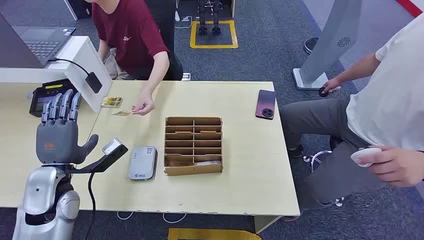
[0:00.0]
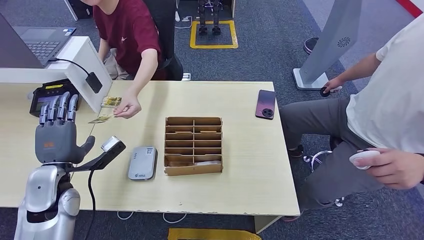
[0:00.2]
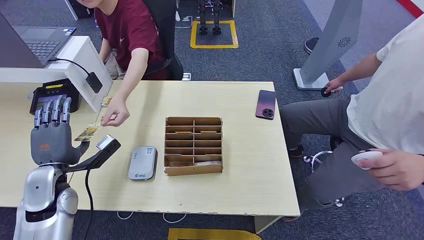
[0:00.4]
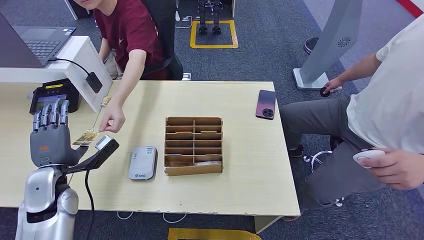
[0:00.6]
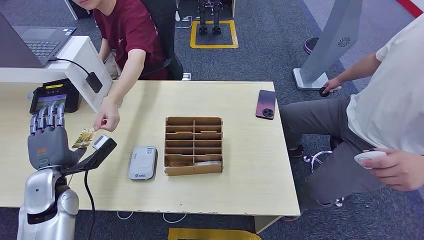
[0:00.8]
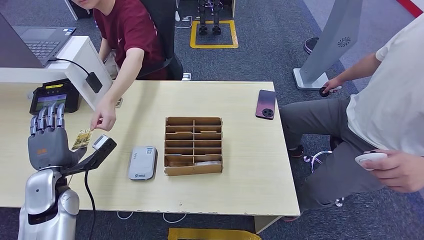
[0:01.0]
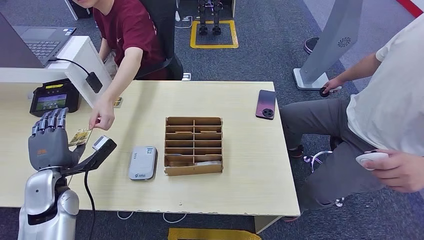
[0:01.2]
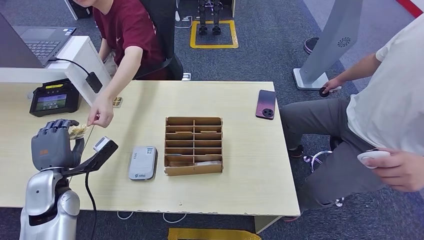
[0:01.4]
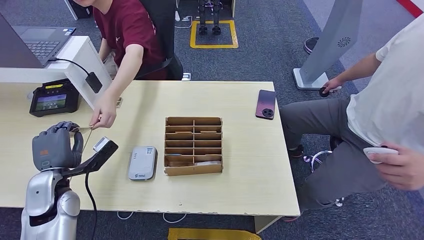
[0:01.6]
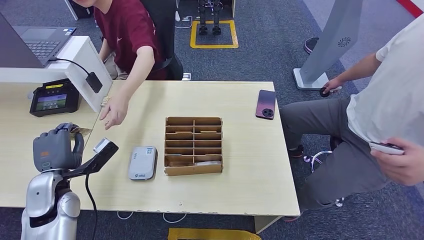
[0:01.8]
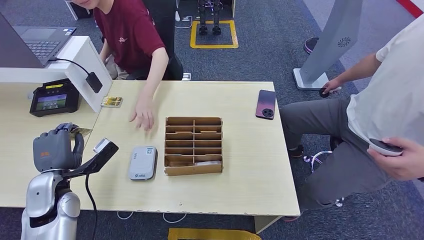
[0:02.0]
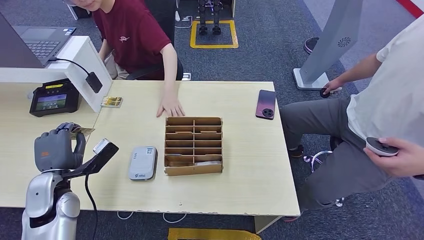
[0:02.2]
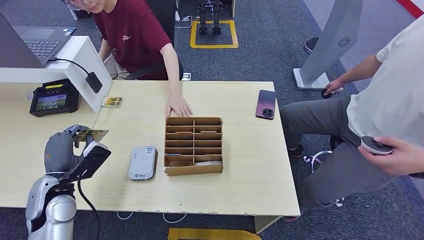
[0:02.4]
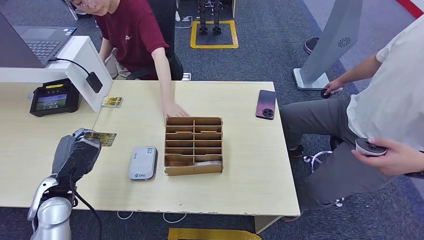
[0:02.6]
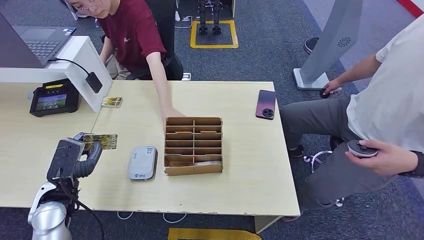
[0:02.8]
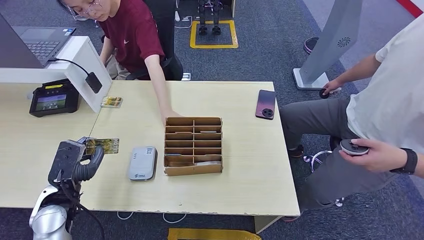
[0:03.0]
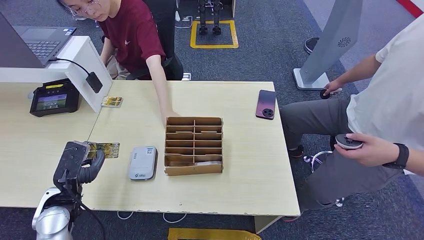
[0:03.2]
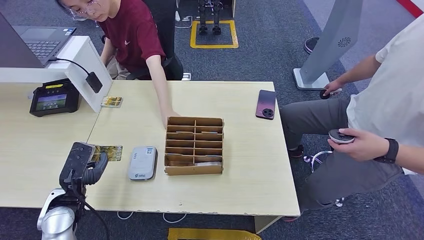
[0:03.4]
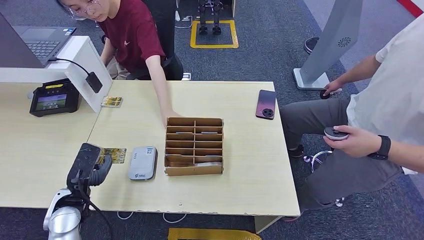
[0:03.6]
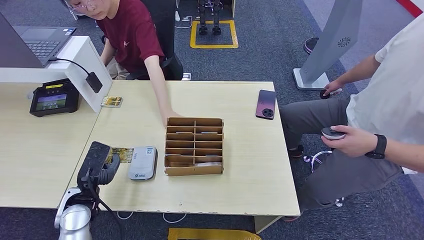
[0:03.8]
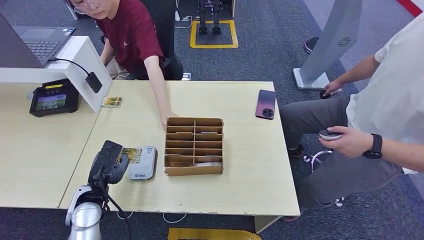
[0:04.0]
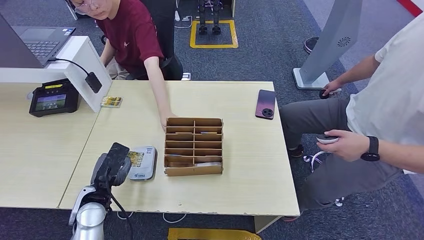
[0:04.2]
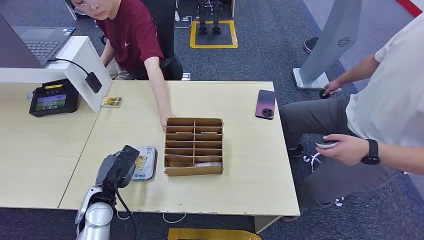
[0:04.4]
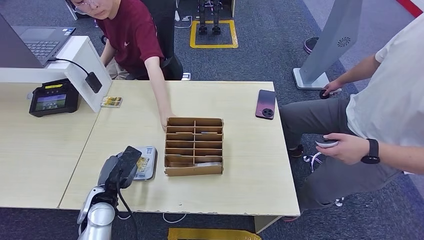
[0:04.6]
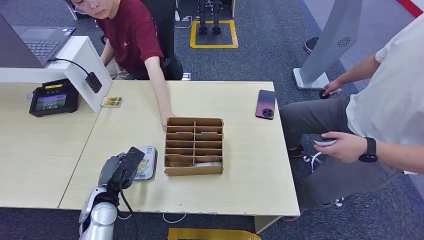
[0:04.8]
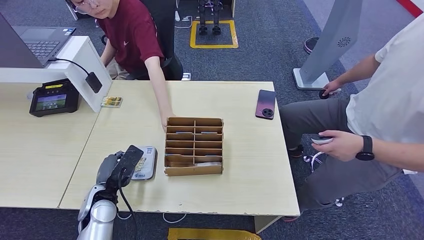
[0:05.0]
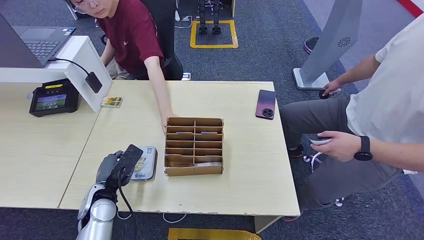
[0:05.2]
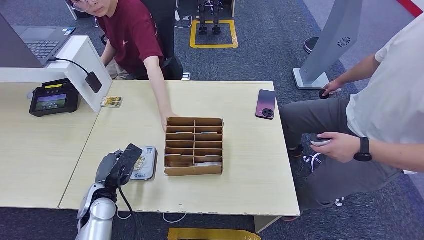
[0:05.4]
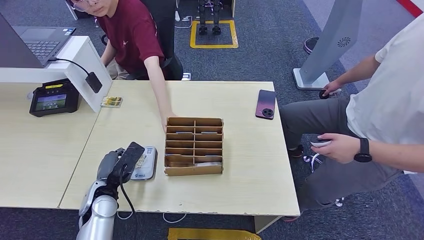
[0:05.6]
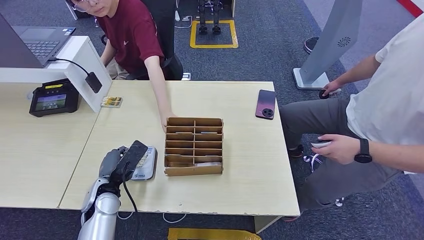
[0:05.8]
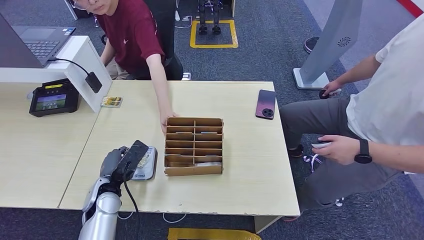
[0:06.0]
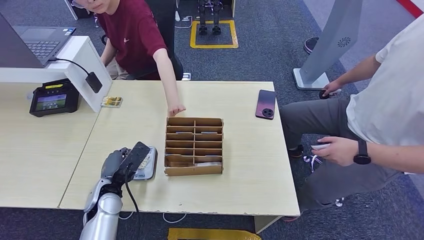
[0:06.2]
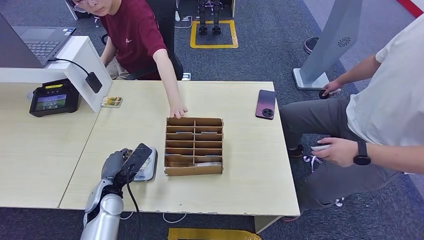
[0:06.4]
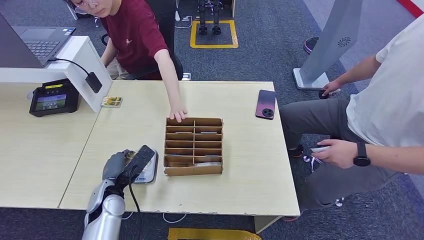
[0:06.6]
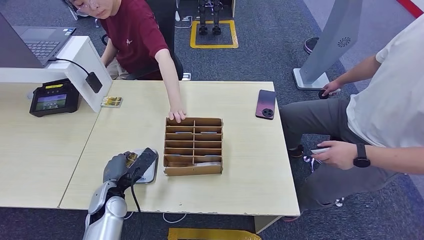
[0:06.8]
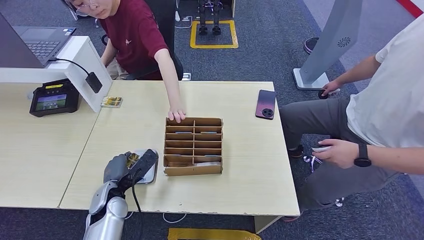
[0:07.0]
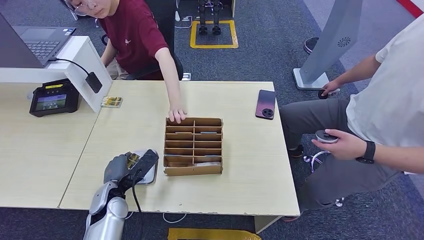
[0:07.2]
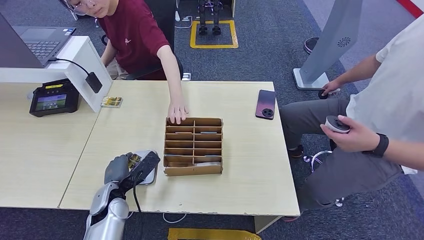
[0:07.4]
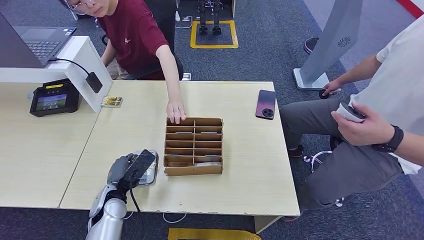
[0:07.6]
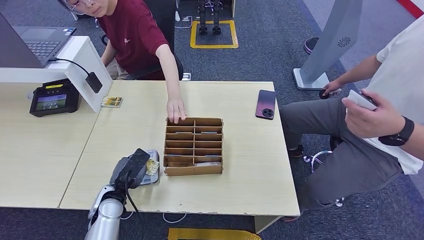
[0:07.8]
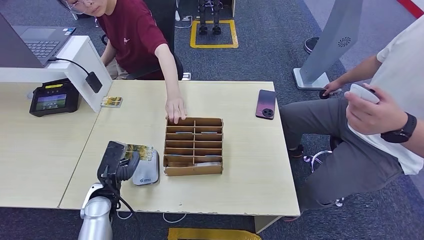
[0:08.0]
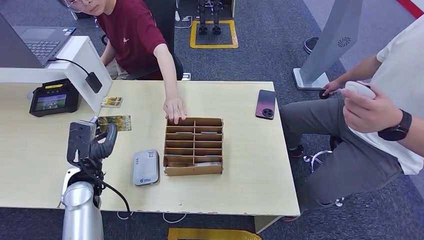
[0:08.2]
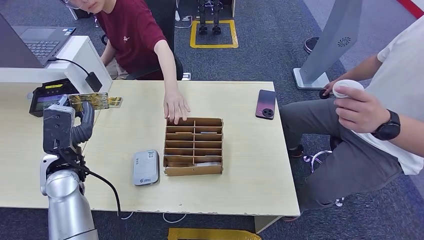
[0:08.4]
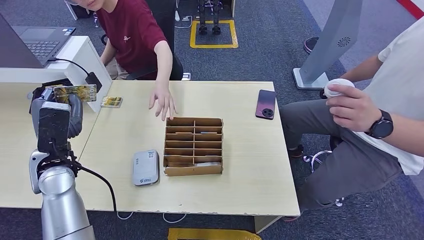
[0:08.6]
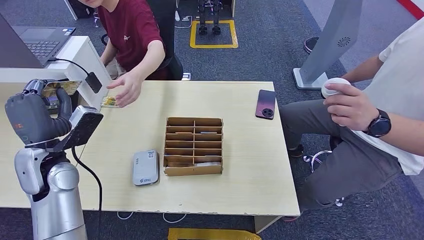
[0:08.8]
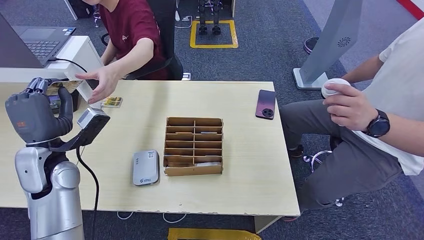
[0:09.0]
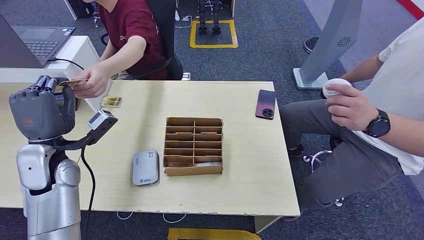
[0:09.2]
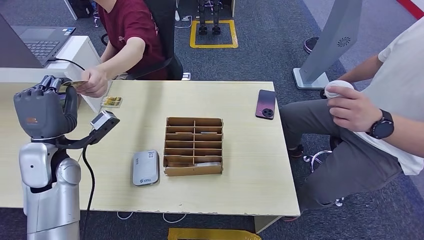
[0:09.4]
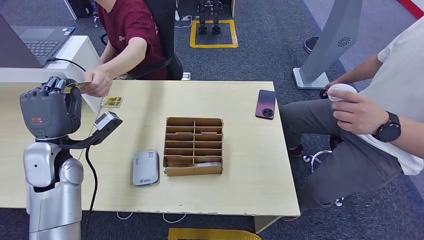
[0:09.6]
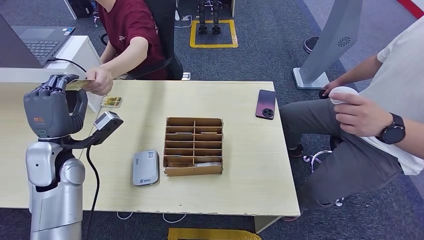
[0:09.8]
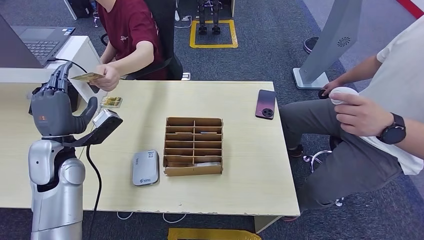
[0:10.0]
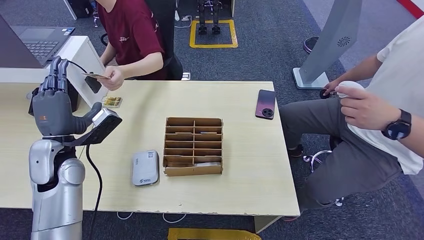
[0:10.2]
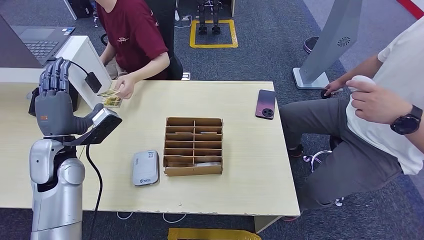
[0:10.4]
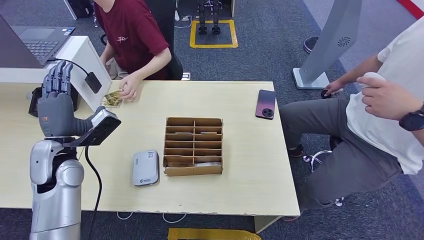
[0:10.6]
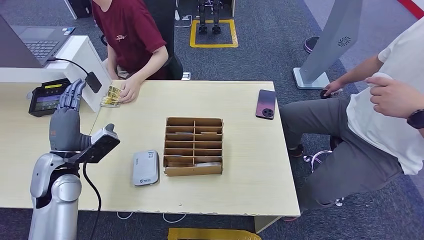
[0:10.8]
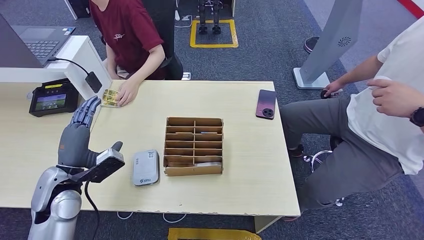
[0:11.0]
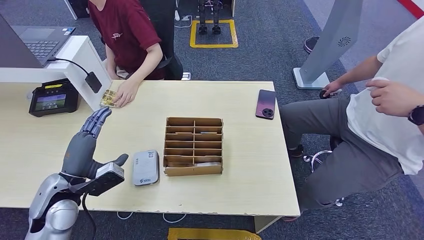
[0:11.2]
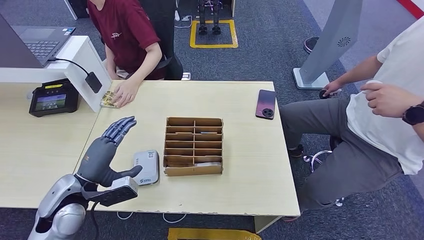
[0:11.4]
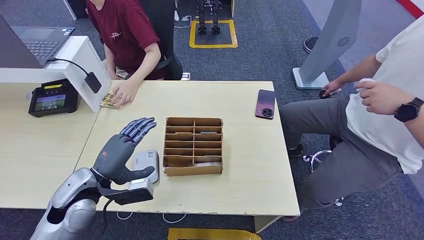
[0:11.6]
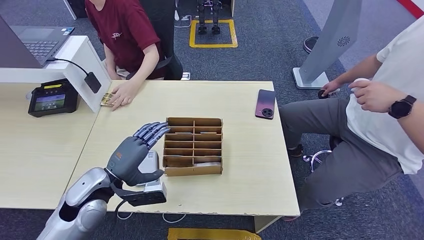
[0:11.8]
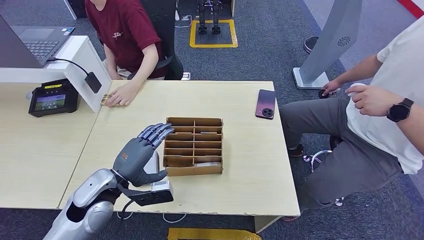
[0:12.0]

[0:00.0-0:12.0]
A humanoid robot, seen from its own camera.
Step, 0:00.0 to 0:02.0: Take the ID card from the person's hand.
Step, 0:02.2 to 0:05.0: Place the ID card on the card reader.
Step, 0:05.2 to 0:10.0: Hand the ID card to the person.
0:03.0 to 0:04.4: The left hand heads to the right, covering some 10 cm.
0:04.4 to 0:06.0: The hands move only a little.
0:06.0 to 0:07.6: There are only small adjustments of the hands.
0:07.6 to 0:09.0: The left hand is displaced upward and to the left by about 20 cm.
0:09.0 to 0:10.4: The hands stay close to where they were, moving slightly.
0:10.4 to 0:12.0: The left hand heads to the right, backward and downward, covering about 15 cm.

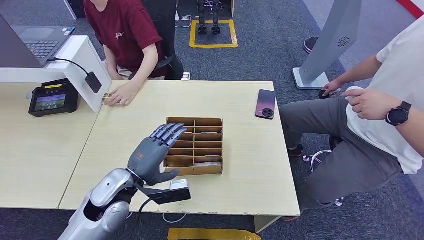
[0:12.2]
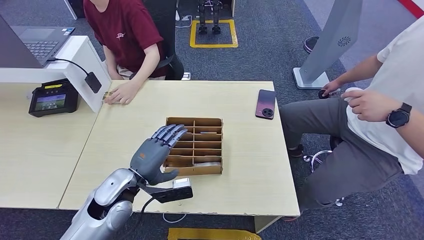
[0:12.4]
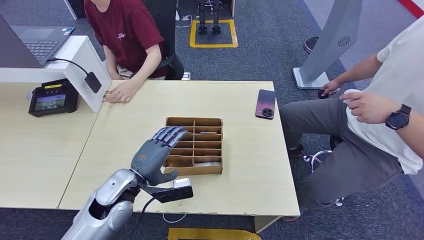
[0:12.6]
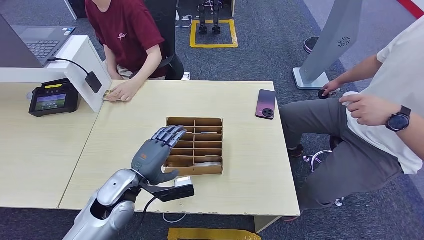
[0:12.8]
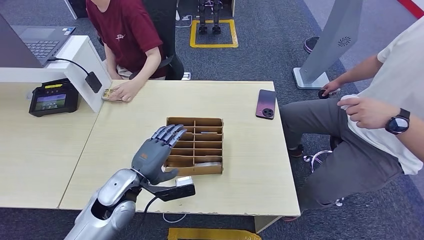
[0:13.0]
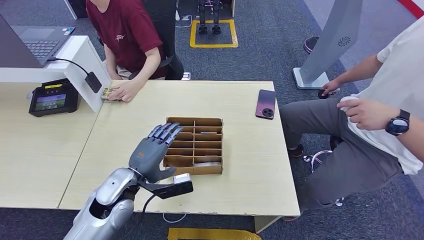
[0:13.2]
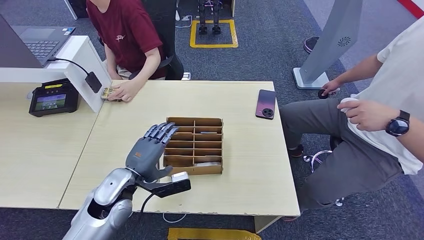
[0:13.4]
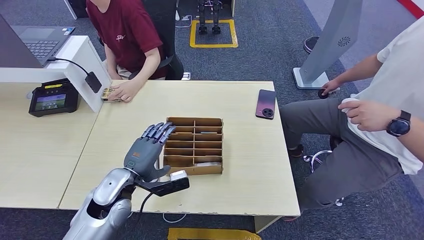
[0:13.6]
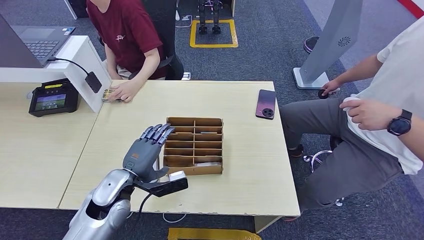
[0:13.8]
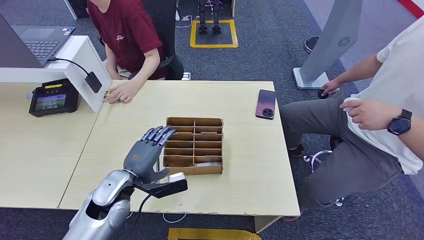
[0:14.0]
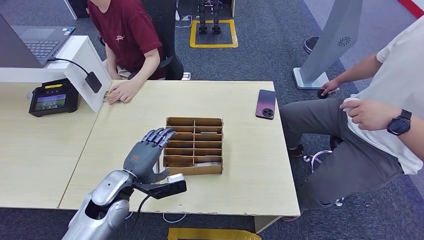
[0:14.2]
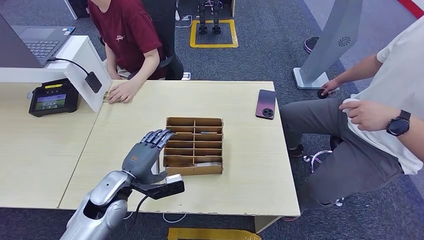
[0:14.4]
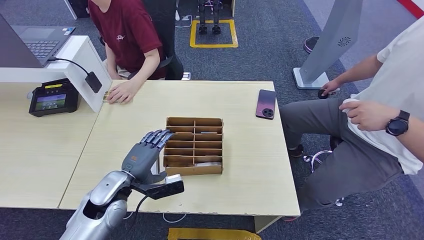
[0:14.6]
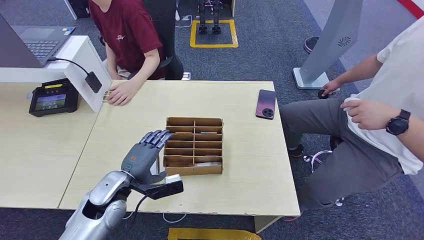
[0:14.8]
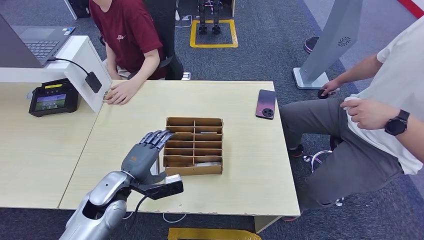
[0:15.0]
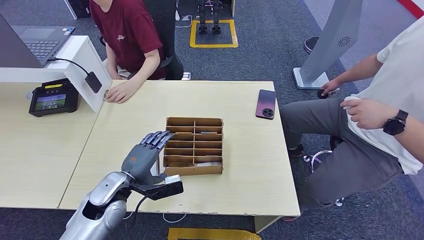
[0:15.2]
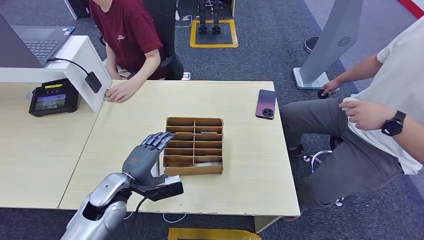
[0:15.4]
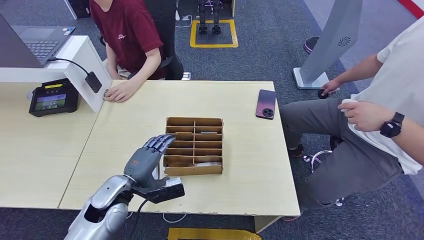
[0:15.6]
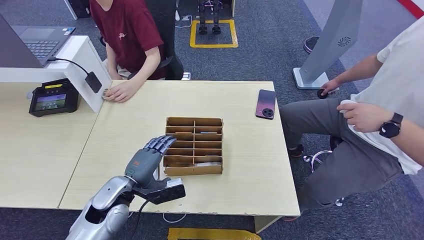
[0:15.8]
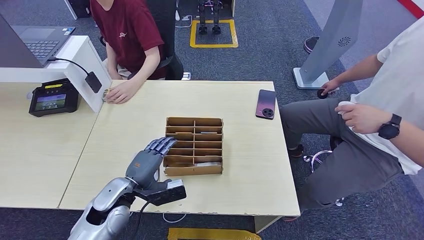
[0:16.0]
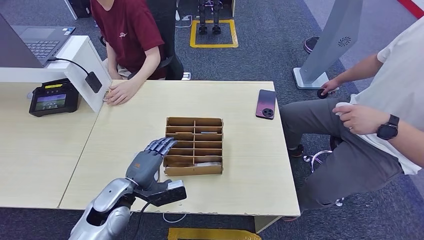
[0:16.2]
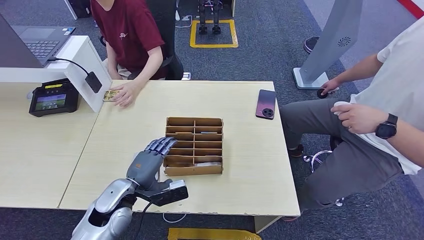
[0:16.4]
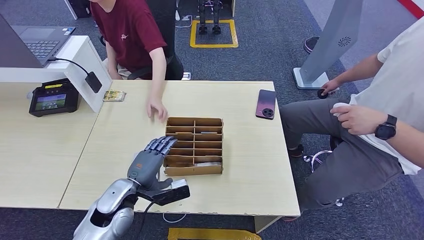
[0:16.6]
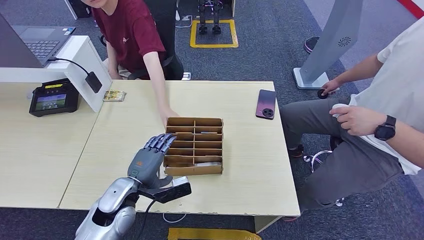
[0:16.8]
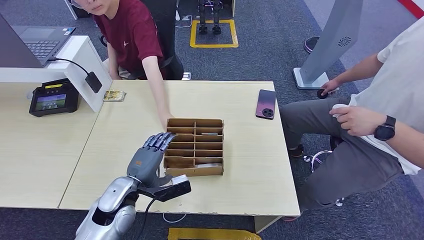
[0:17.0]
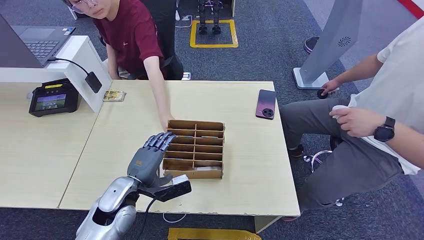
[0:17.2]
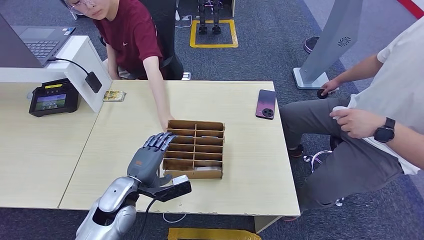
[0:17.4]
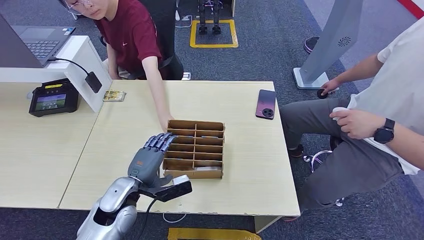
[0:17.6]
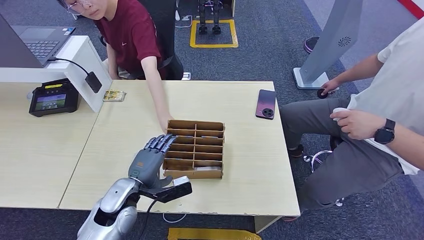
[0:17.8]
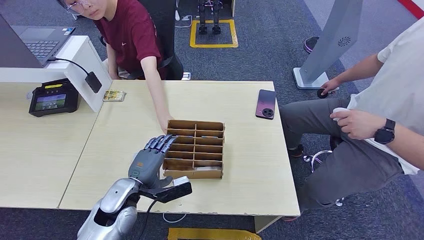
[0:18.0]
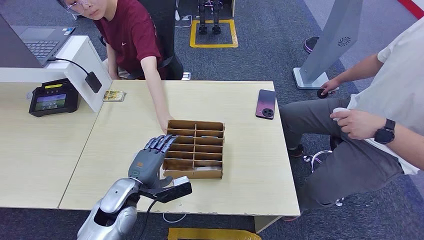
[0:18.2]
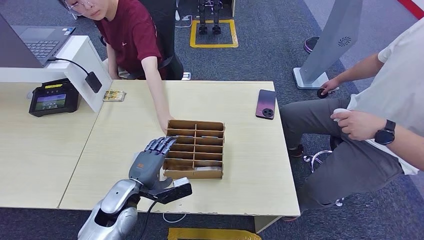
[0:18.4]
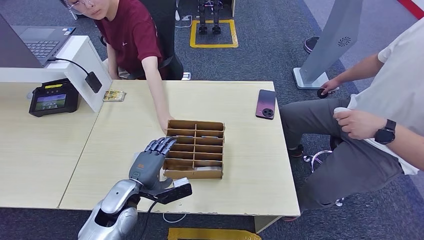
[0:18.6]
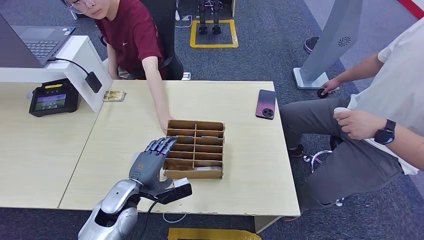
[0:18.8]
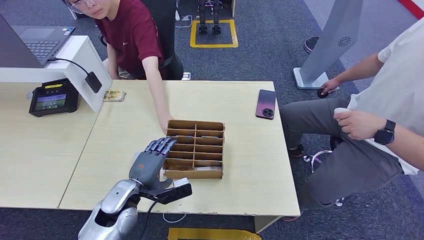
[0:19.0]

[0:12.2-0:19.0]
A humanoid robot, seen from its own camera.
0:12.2 to 0:17.6: The hands move only a little.
0:17.6 to 0:19.0: Both hands stay about where they are.
